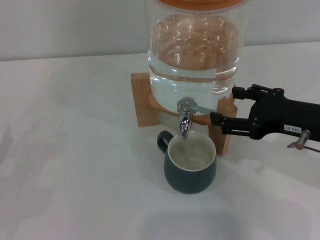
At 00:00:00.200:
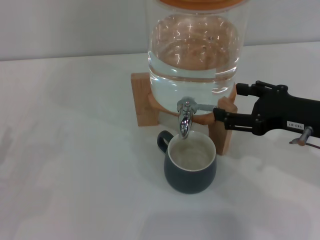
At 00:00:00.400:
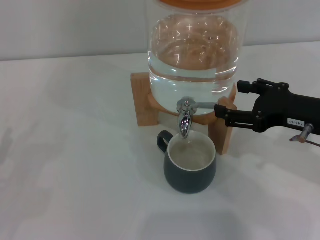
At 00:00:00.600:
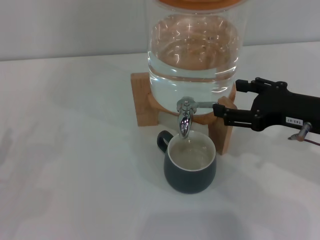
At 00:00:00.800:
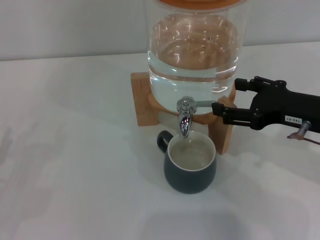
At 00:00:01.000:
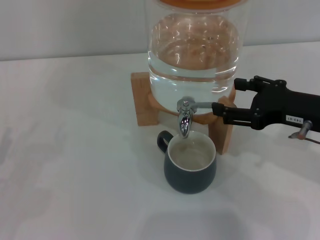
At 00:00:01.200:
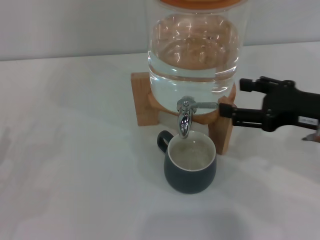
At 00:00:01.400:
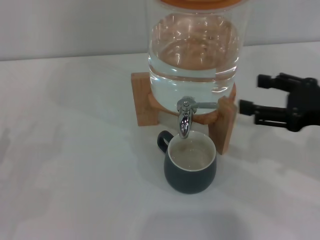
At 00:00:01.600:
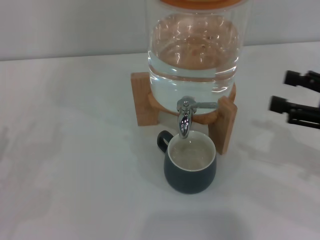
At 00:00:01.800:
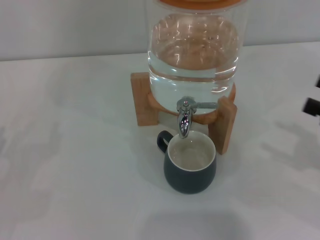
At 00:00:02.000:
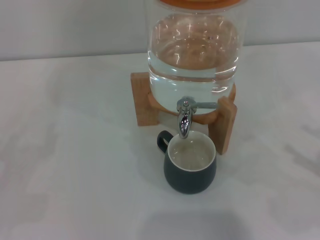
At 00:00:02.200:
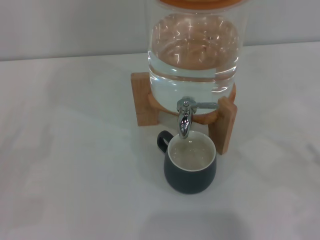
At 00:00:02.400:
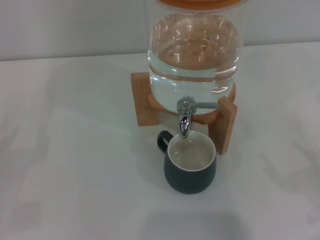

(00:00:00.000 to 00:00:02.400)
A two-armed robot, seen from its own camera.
Task of the whole recording: the left gripper pick up the black cup and place it horizontally under the faucet, the right gripper turn on the faucet to fill the cup, and then turn off the faucet.
00:00:00.000 - 00:00:01.200: The grippers stay close to where they were, moving slightly.
00:00:01.200 - 00:00:02.400: The right gripper shifts roughly 20 cm downward, to the right and backward.
